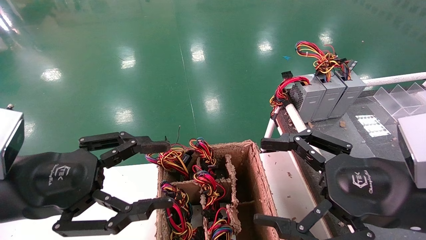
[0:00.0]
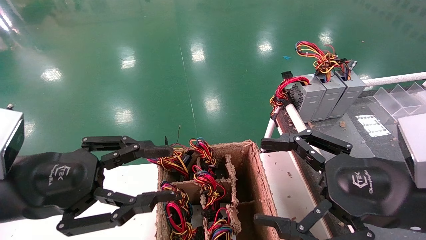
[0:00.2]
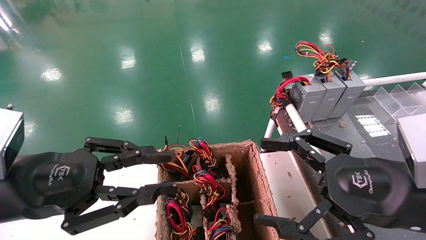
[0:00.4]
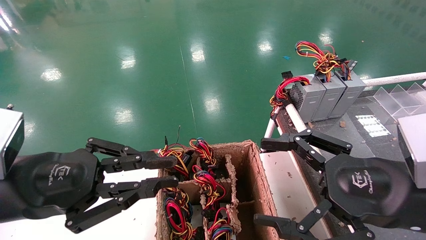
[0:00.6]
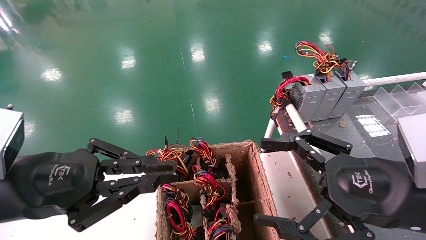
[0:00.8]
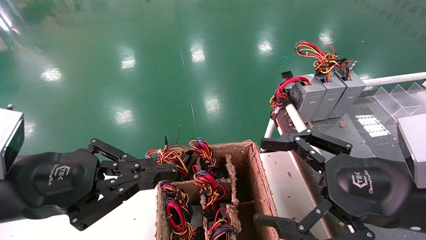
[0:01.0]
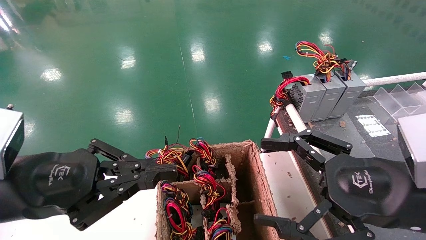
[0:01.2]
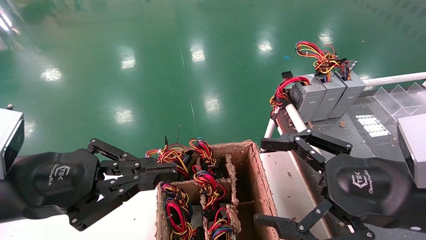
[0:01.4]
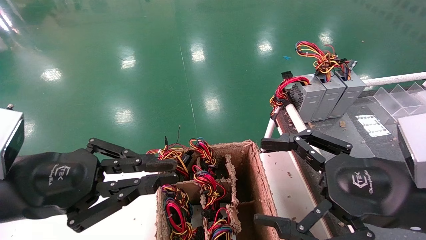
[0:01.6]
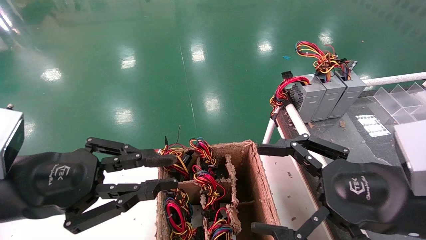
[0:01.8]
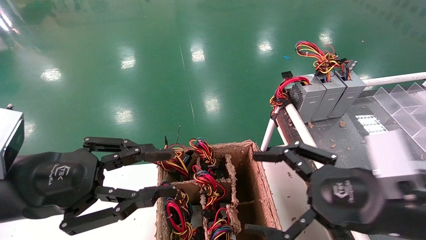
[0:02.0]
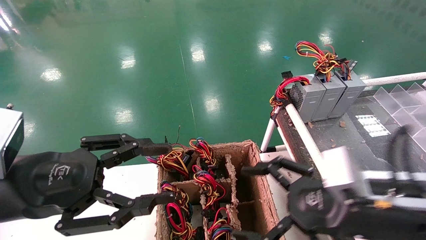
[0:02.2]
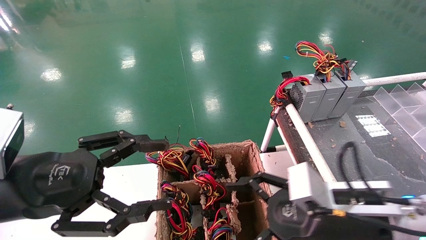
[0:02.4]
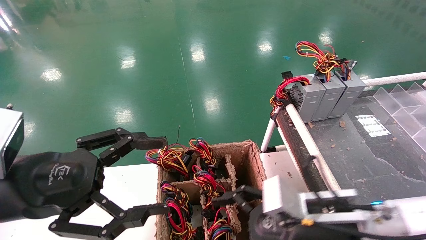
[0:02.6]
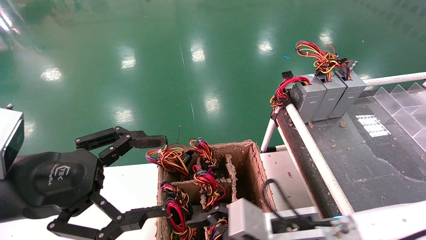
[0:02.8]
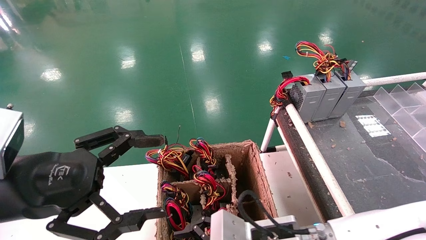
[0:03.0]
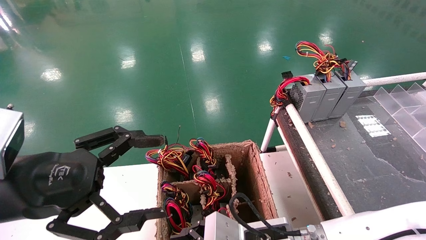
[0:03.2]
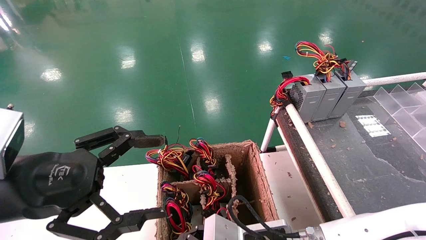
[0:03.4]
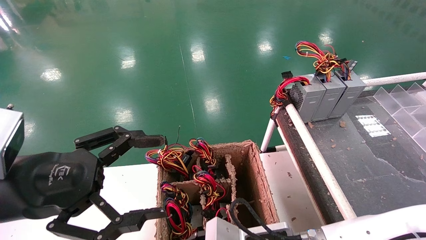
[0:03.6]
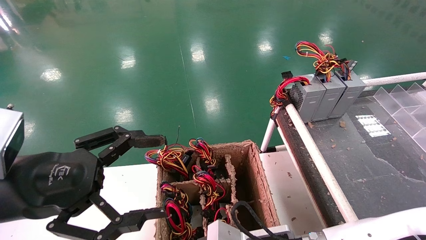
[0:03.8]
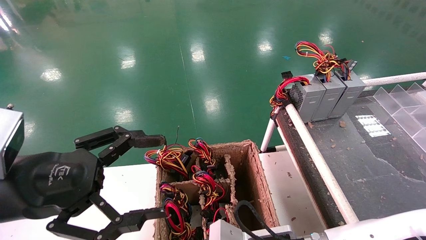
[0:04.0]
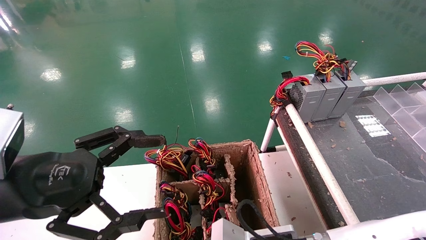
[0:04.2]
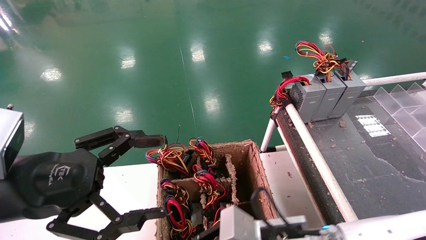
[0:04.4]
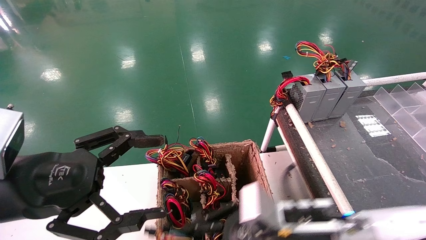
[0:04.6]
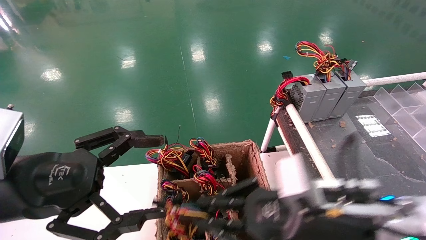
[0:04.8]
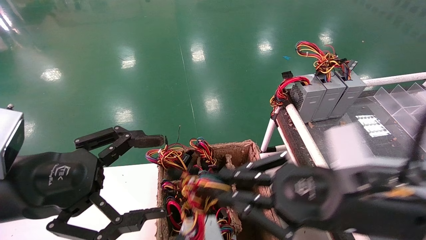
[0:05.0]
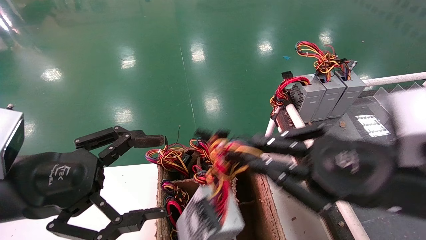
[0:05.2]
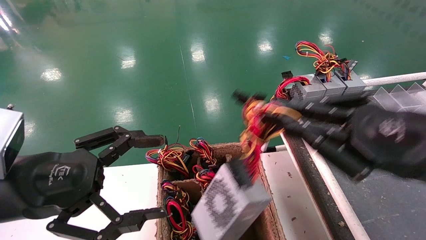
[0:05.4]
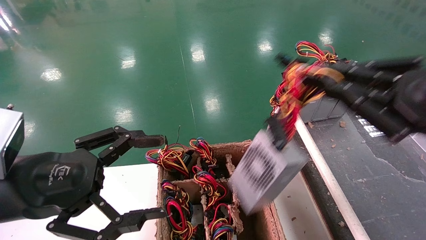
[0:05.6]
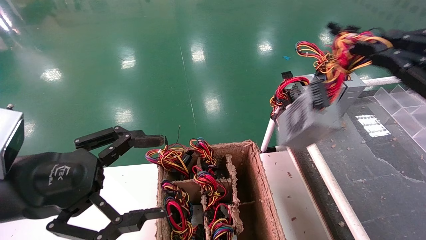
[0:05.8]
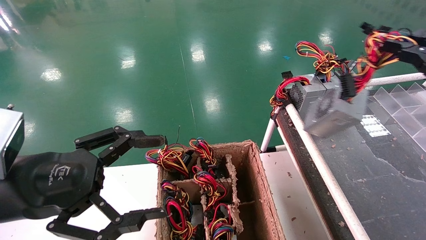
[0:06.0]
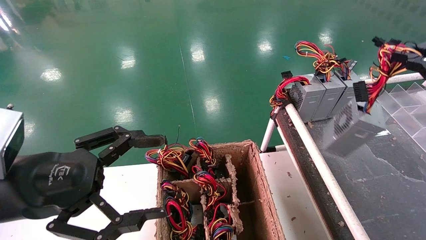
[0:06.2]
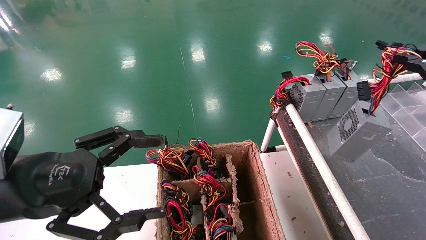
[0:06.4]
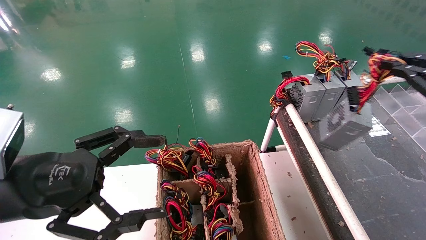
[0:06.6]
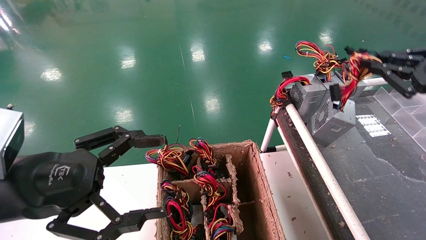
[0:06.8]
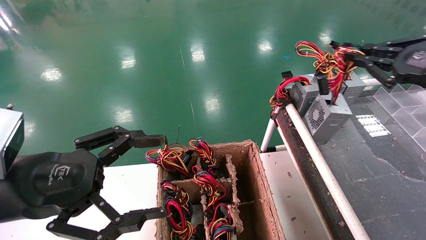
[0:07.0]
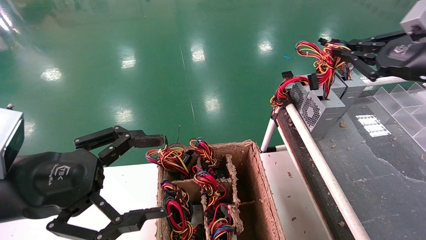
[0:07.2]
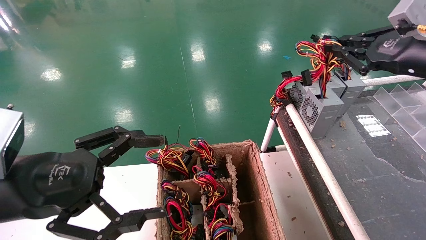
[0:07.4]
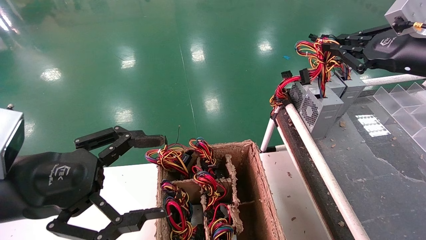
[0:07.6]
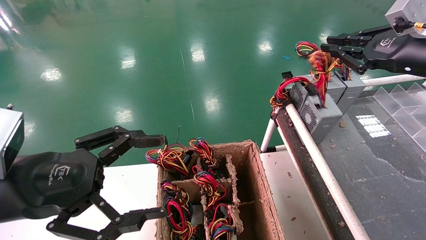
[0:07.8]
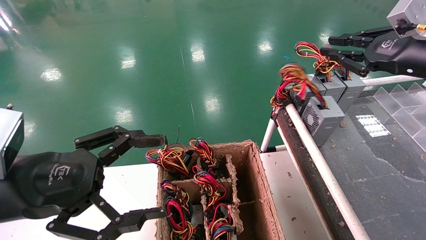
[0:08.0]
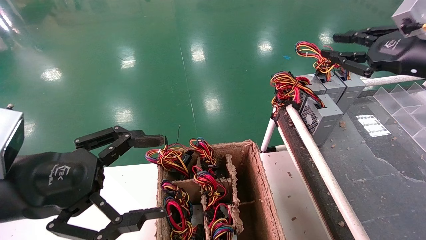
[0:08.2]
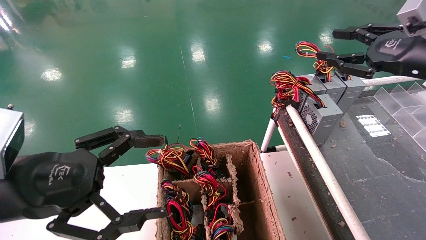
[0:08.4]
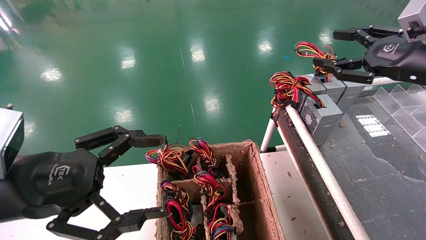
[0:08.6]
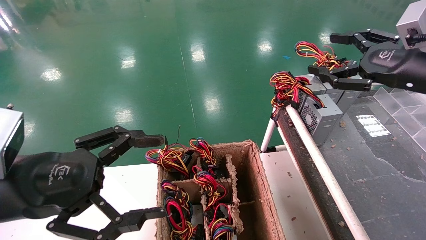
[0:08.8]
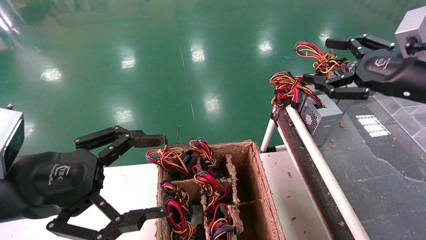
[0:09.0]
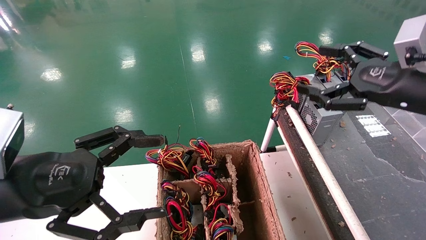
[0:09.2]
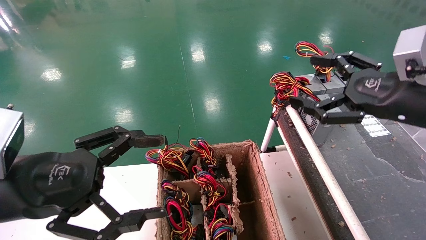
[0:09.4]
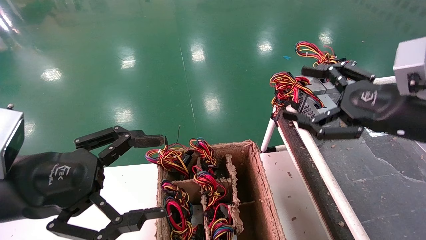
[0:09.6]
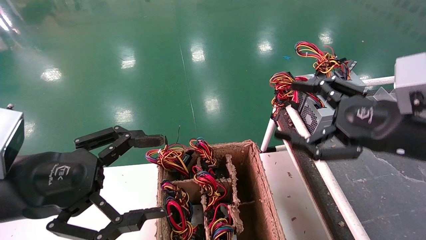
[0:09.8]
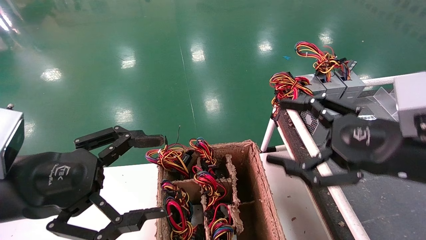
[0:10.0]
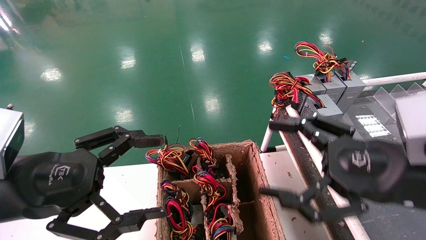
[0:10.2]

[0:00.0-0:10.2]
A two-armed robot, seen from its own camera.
Step, 0:02.2 to 0:04.4: Grab and lift the power supply from the large box.
Step, 0:04.6 to 0:07.8: Place the power supply on the operating table.
0:00.0 to 0:01.4: The left gripper closes.
0:01.4 to 0:03.0: The left gripper opens up, while the right gripper goes approximately 20 cm to the left, downward and forward.
0:03.0 to 0:04.4: The right gripper closes its fingers.
0:04.4 to 0:05.8: The right gripper heads to the right and upward, covering approximately 35 cm.
0:05.8 to 0:07.2: The right gripper heads forward, covering some 15 cm.
0:07.2 to 0:08.8: The right gripper opens up.
0:08.8 to 0:10.2: The right gripper moves backward, downward and to the left, roughly 15 cm.

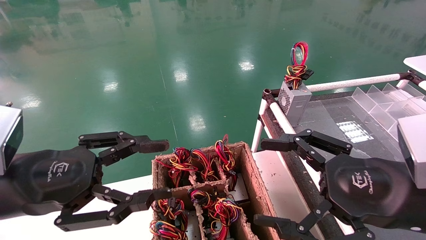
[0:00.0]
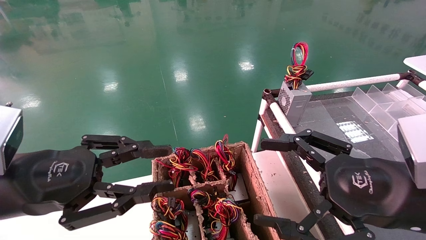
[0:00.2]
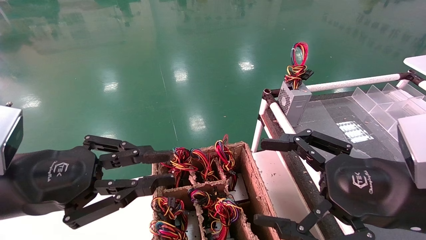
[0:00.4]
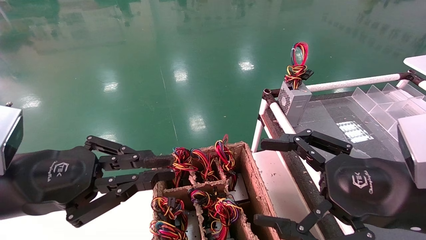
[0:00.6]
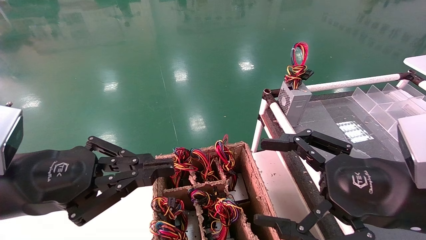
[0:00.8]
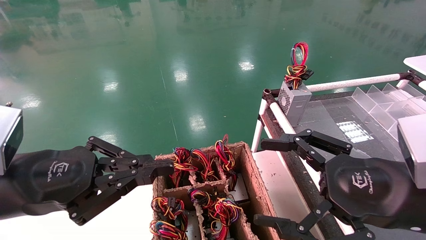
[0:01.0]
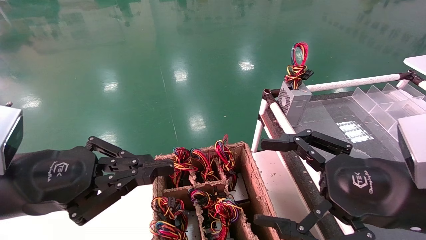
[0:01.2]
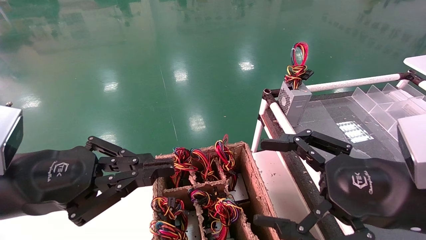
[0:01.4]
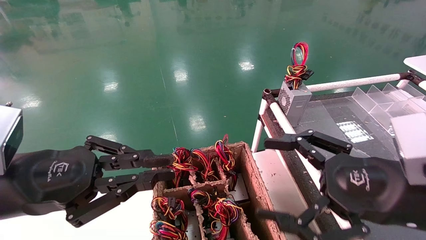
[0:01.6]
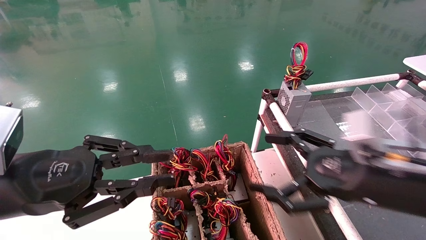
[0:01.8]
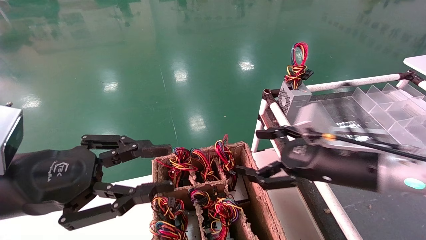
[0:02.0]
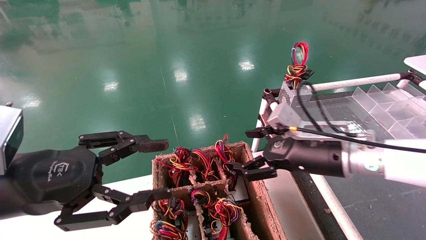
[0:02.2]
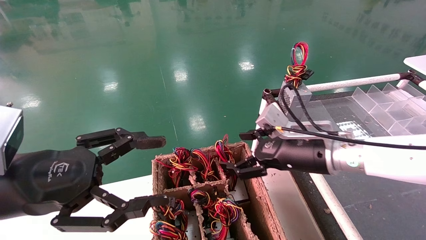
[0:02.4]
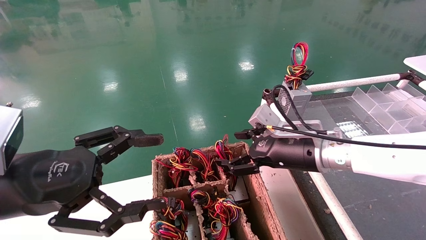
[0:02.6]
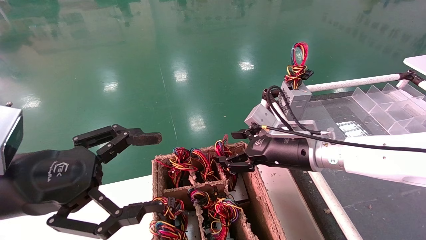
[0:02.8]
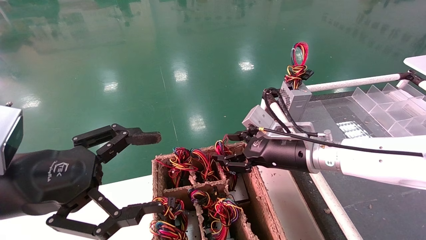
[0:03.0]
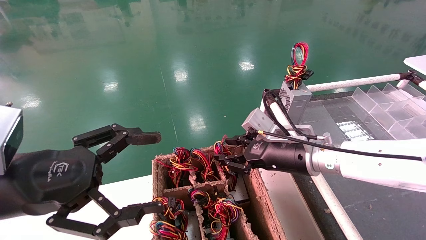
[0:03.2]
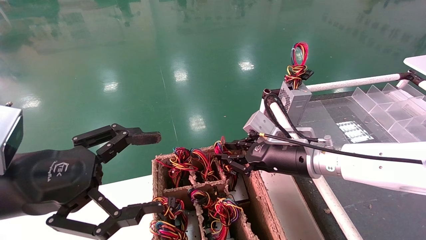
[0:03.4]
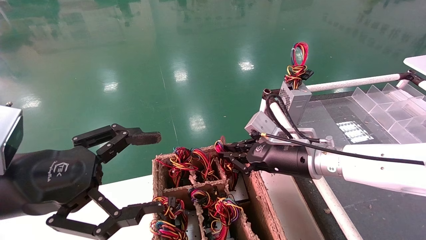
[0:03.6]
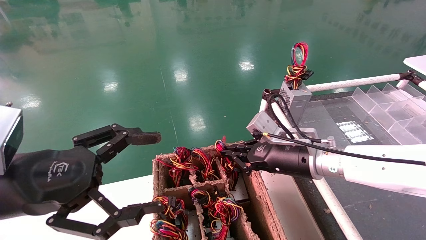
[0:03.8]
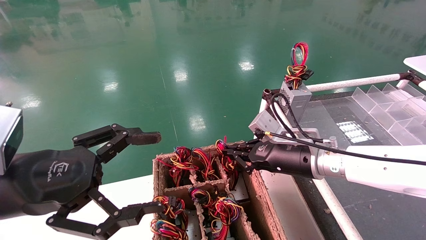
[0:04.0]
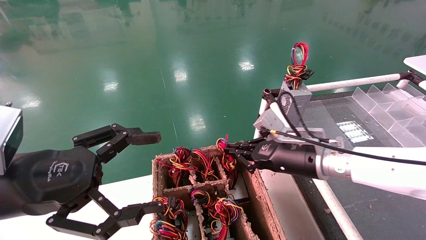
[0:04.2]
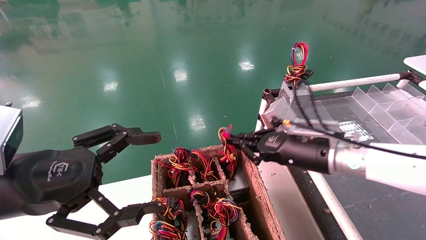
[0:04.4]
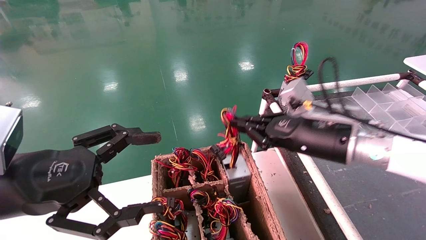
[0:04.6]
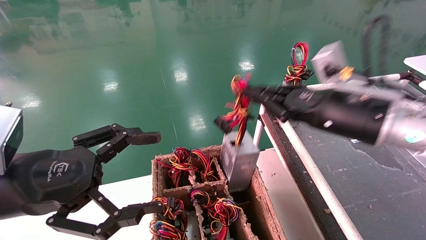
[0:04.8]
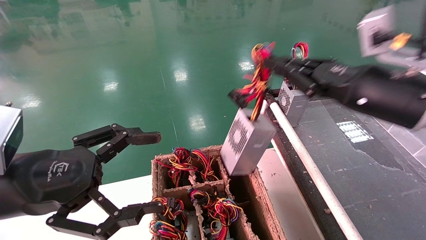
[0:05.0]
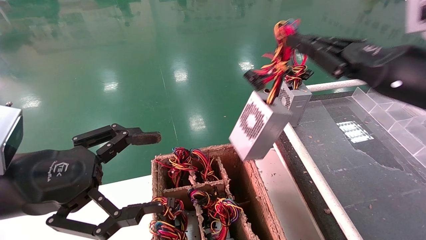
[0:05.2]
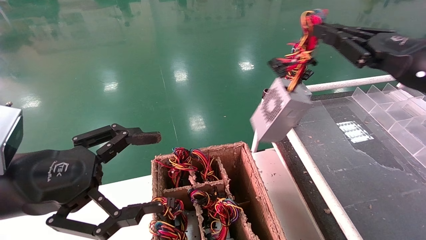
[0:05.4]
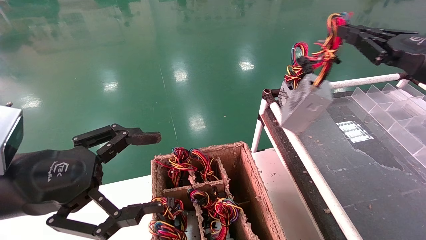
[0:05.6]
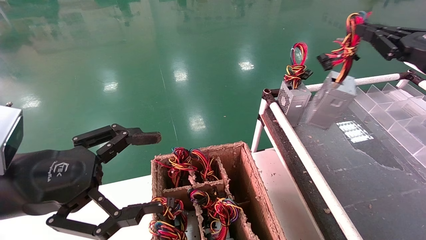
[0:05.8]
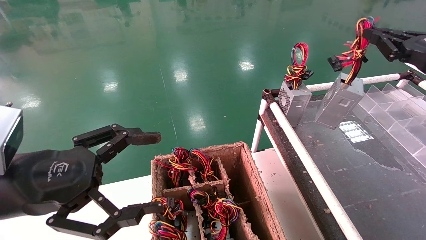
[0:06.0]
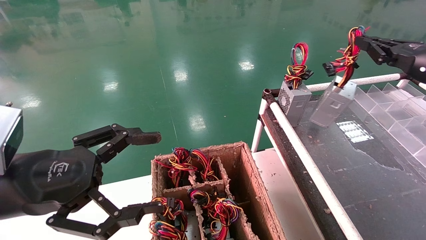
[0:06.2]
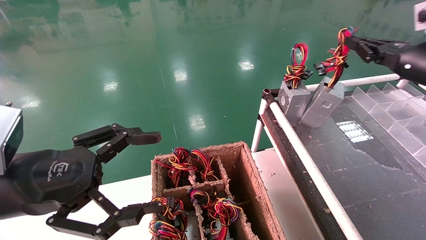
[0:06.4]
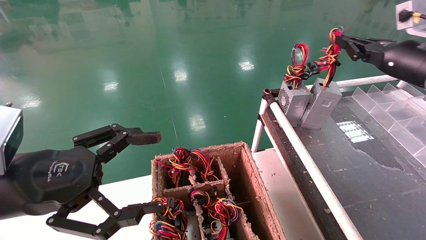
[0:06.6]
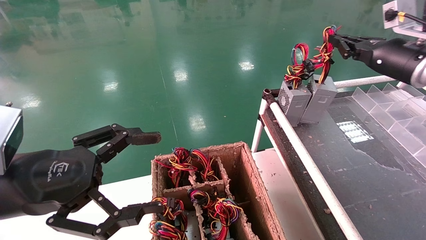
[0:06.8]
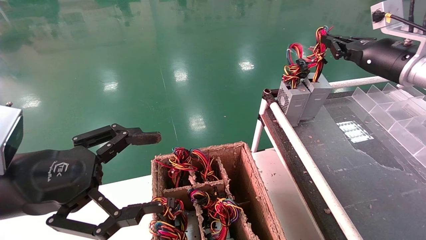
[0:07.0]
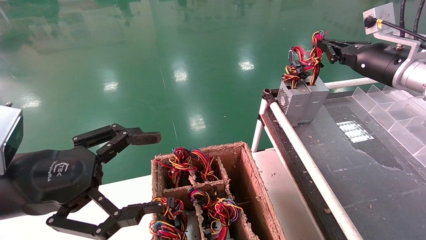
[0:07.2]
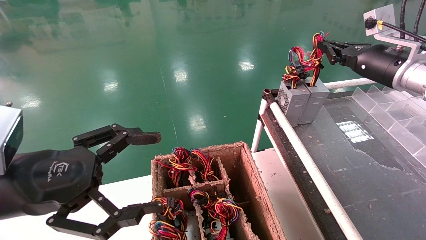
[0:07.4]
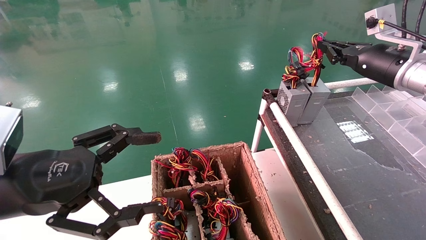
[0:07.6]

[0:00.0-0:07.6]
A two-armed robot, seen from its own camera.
Step, 0:00.6 to 0:03.6: Grab and lift the power supply from the large box.
0:00.0 to 0:01.6: The left gripper closes its fingers.
0:01.6 to 0:03.0: The right gripper travels forward and to the left by roughly 20 cm; the left gripper opens its fingers.
0:03.0 to 0:04.6: The right gripper heads upward, covering roughly 5 cm, and closes its fingers.
0:04.6 to 0:06.0: The right gripper moves to the right and upward, approximately 20 cm.
0:06.0 to 0:07.6: The right gripper is displaced forward and to the left by some 10 cm.
